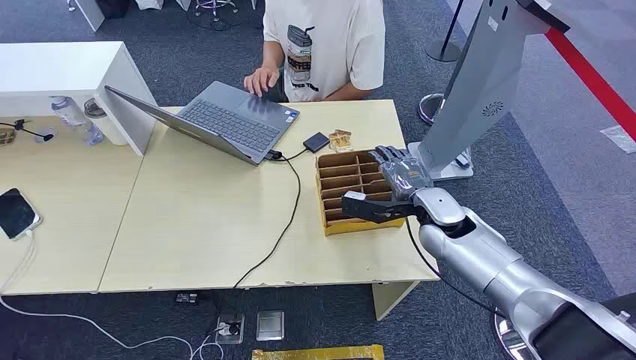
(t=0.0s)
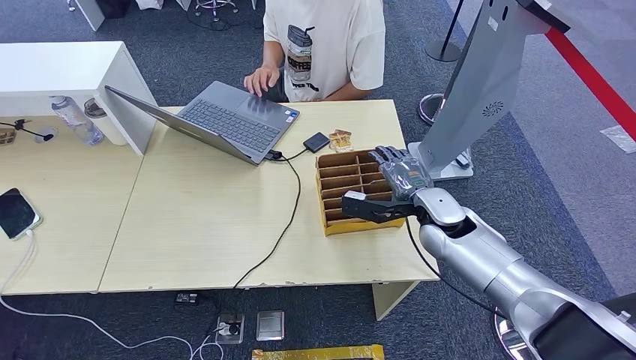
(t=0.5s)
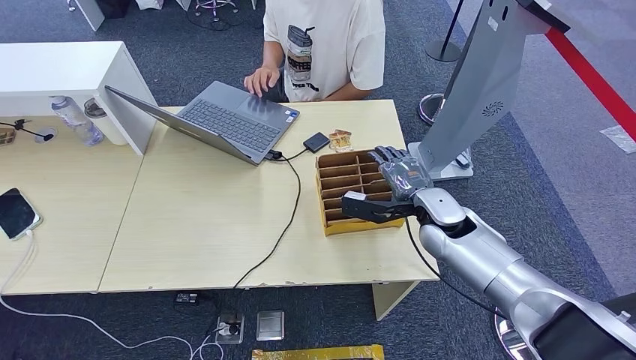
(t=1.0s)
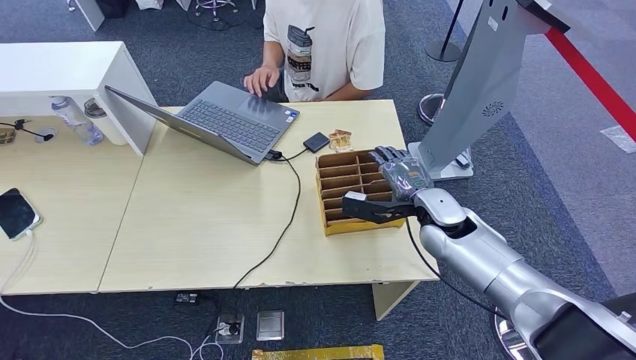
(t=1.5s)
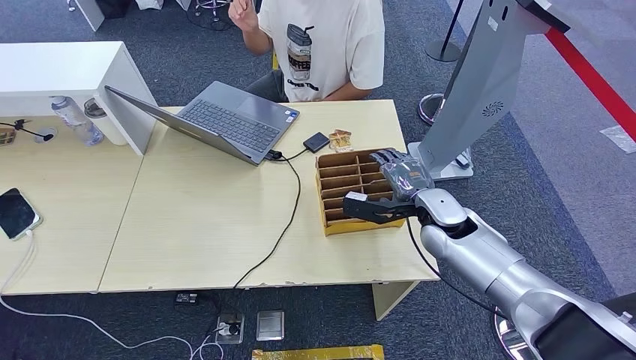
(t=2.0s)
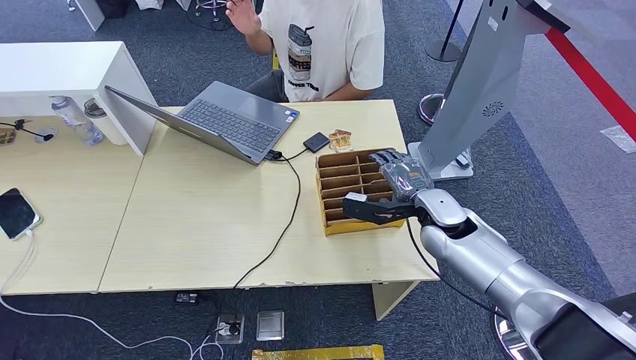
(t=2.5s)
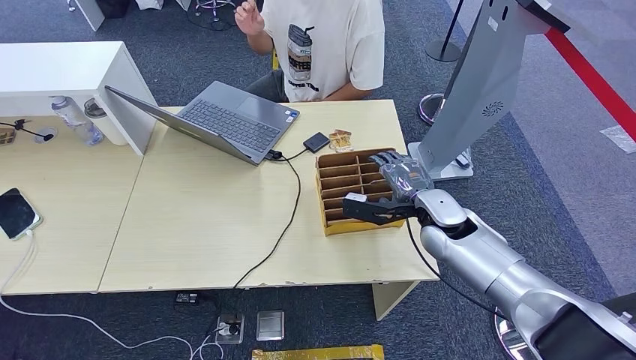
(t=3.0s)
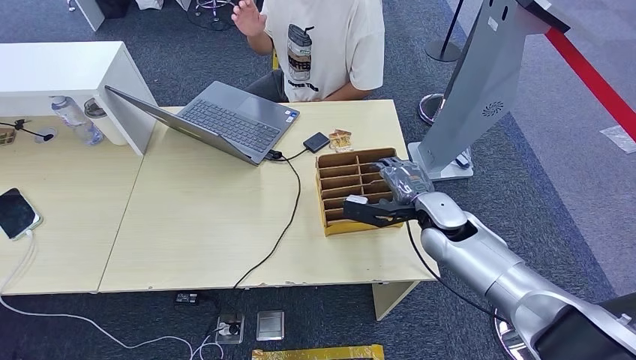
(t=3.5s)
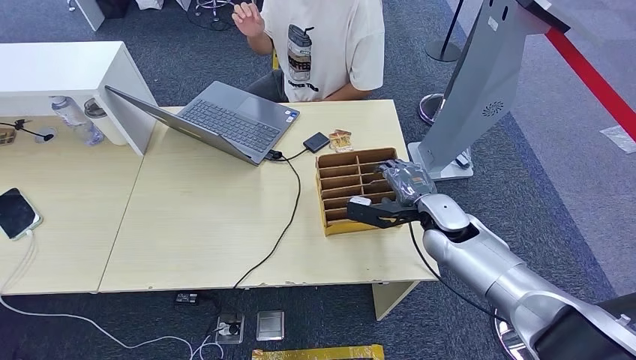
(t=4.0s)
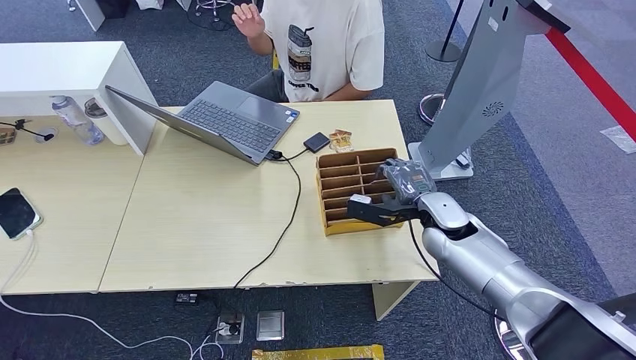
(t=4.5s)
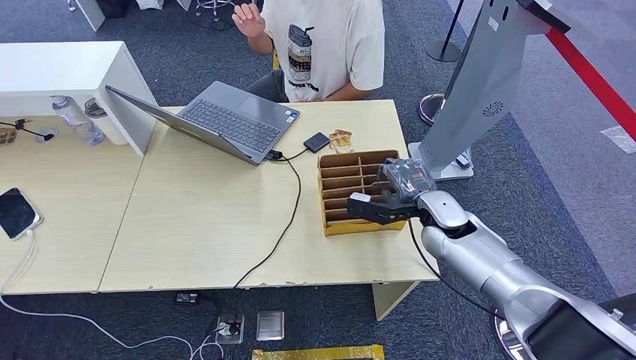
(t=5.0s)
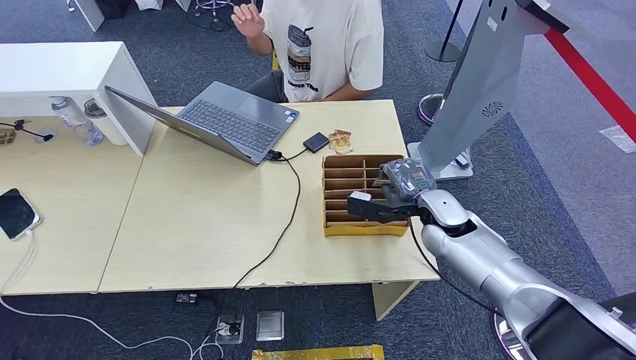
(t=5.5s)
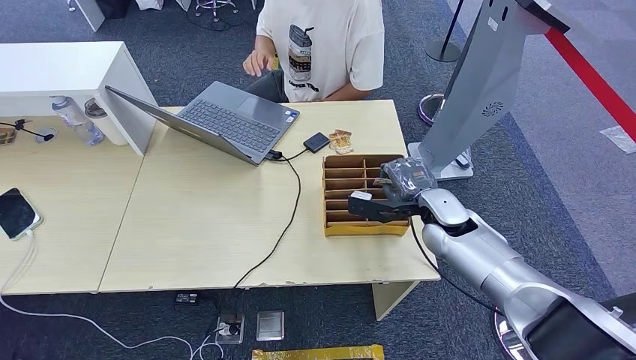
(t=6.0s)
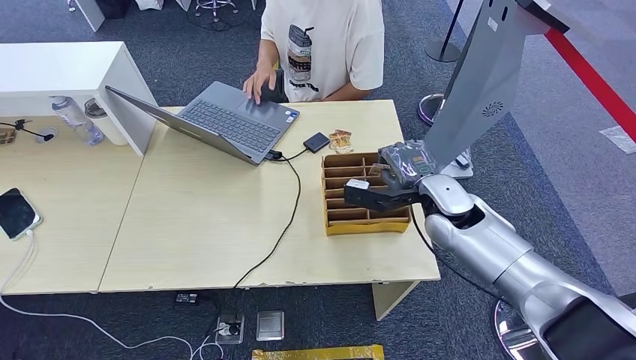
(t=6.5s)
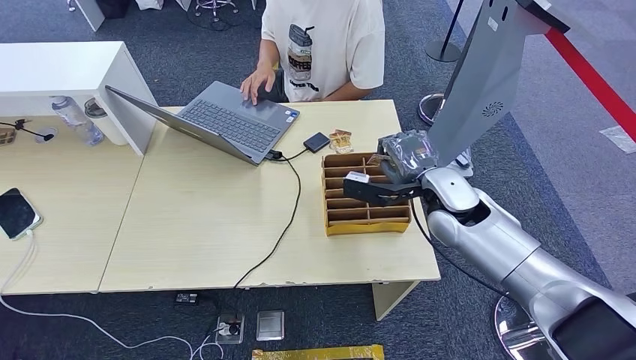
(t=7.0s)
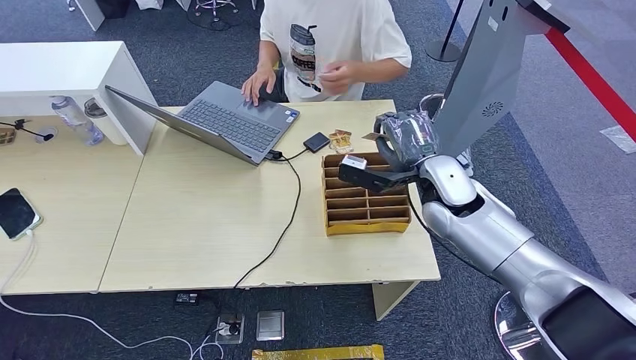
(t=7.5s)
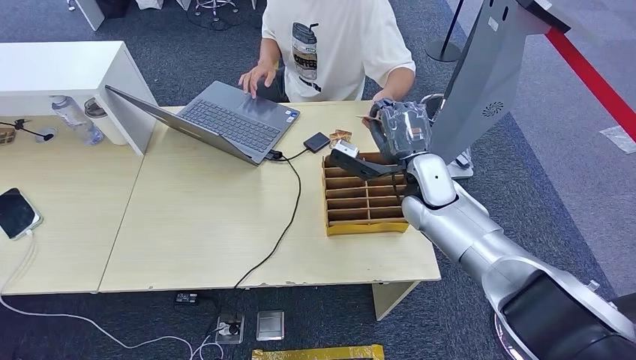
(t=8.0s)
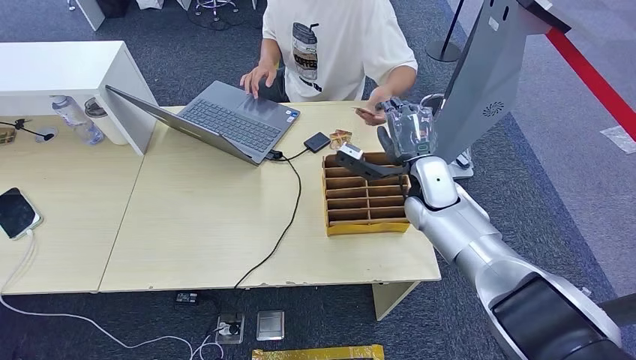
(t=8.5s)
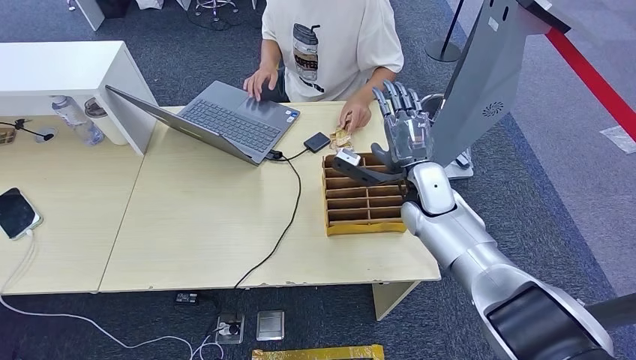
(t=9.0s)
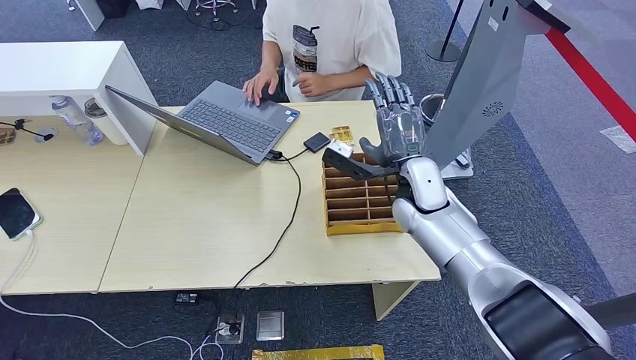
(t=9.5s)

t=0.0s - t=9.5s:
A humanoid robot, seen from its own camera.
Step, t=0.0s - t=6.0s: Pick up the room card from the card holder.
Step, t=7.0s - t=9.5s: Hand the room card to the target.
t=2.0s - t=4.0s: The hands stay close to where they were, moving slightly.
t=4.0s - t=5.5s: Both hands stay put.
t=5.5s - t=7.5s: The right hand travels upward by roughly 10 cm.
t=7.5s - t=9.5s: The hands make only small movements.

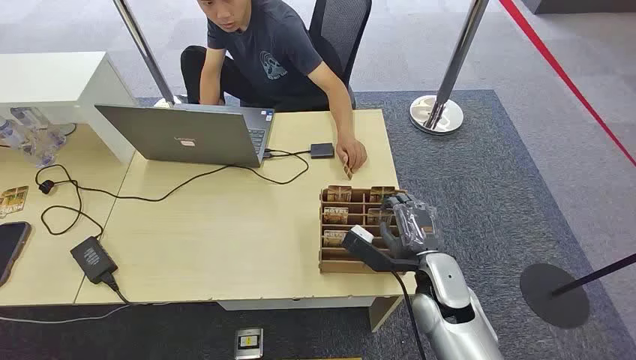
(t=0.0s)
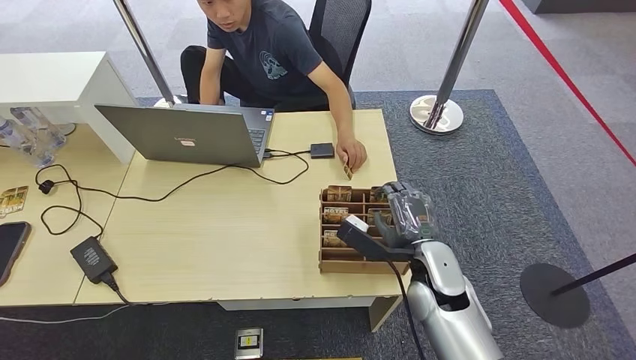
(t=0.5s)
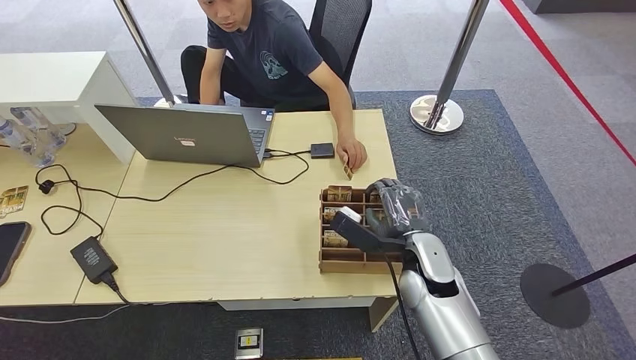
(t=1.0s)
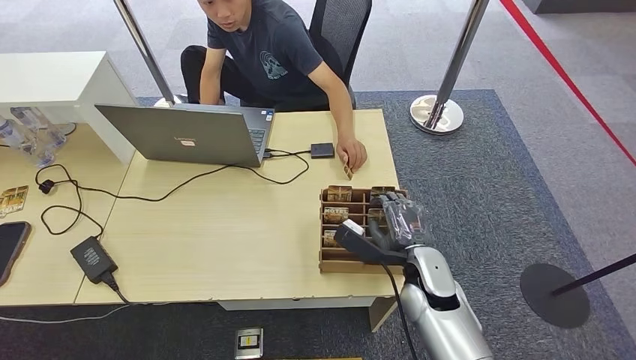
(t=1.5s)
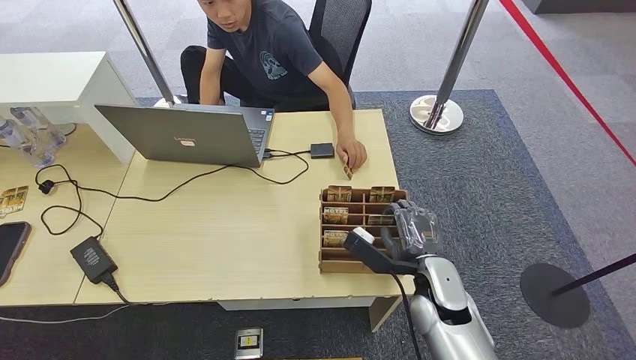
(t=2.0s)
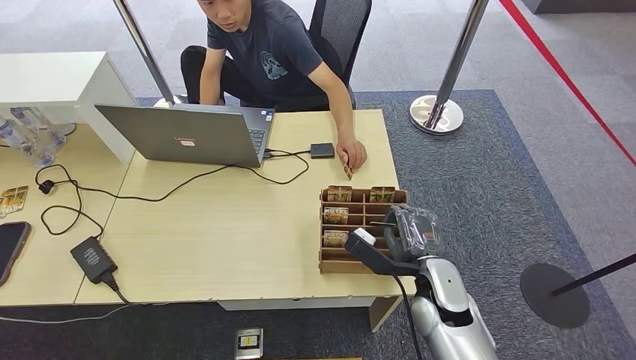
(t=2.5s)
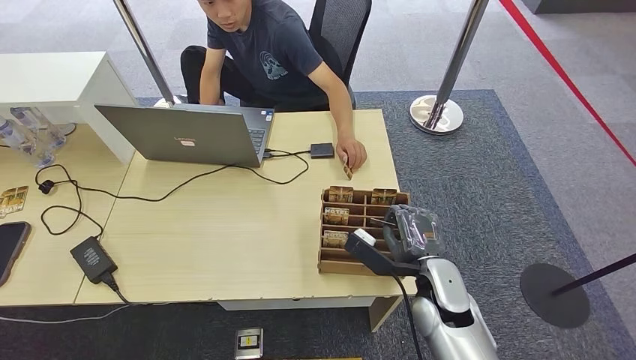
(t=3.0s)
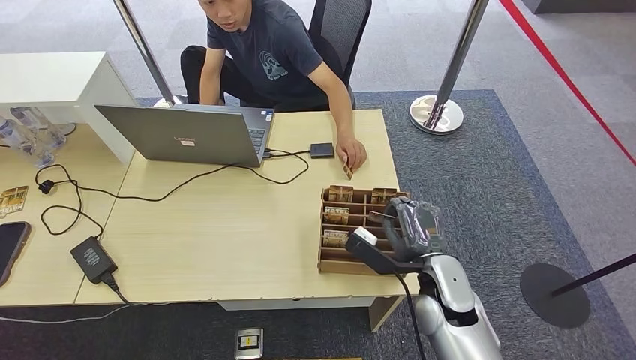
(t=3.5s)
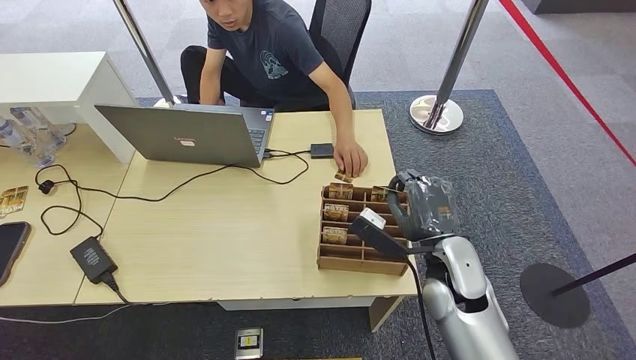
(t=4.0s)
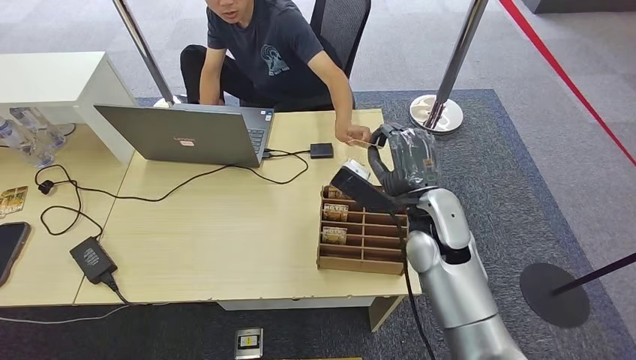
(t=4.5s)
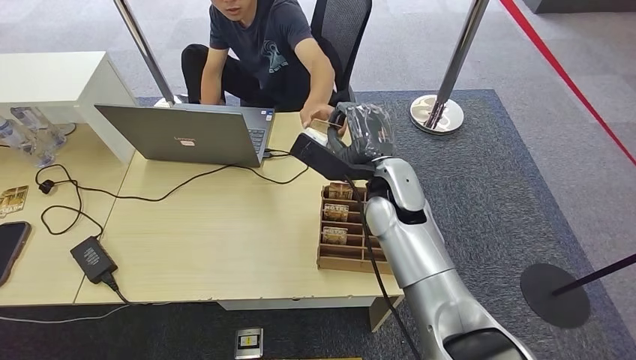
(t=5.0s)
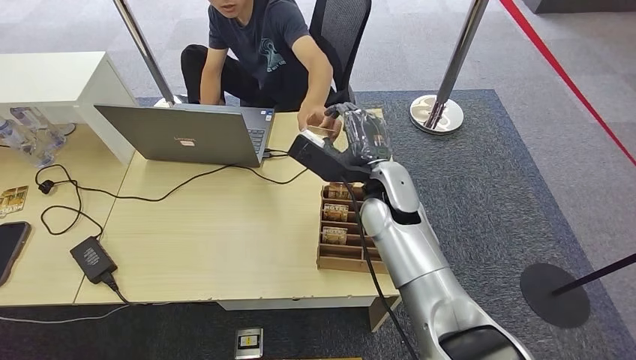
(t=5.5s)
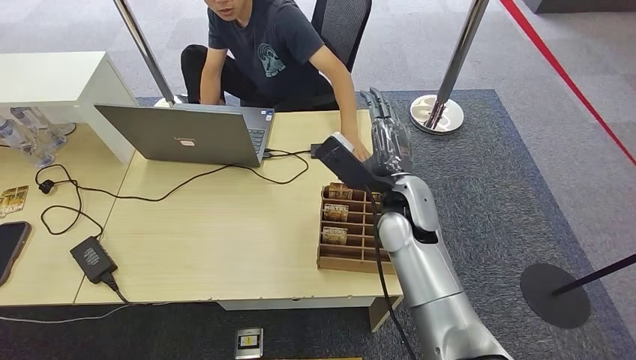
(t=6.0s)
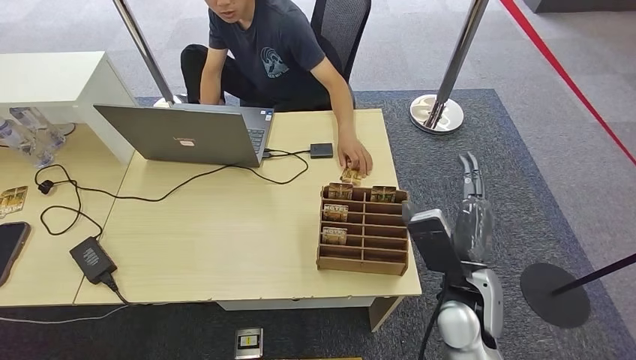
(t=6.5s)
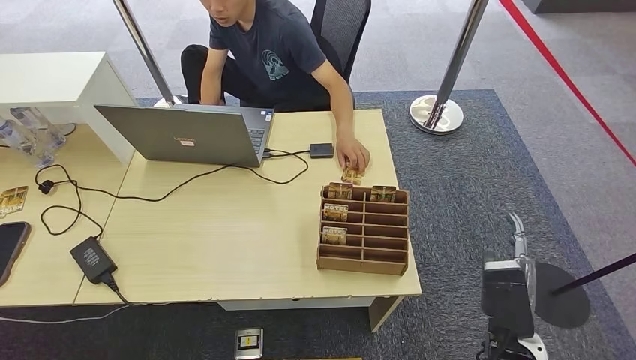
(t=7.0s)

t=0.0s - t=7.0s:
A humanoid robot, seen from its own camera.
Step, t=0.0s - t=4.5s: Pick up the room card from the card holder.
Step, t=5.0s - t=7.0s: Hand the room card to the target.
t=2.0s - t=3.5s: The hands stay close to where they were, moving slightly.
t=3.5s - t=5.0s: The right hand heads upward, forward and to the left, covering approximately 20 cm.
t=5.0s - t=7.0s: The right hand shifts roughly 25 cm backward, to the right and downward.
